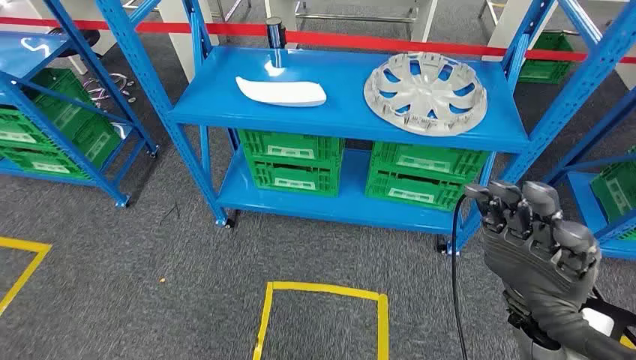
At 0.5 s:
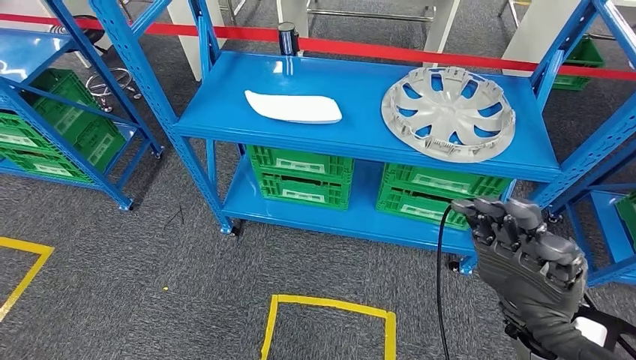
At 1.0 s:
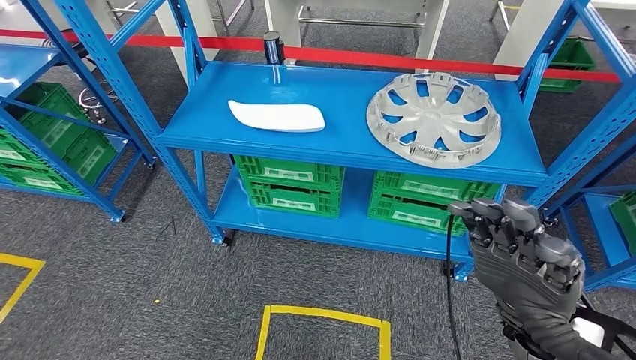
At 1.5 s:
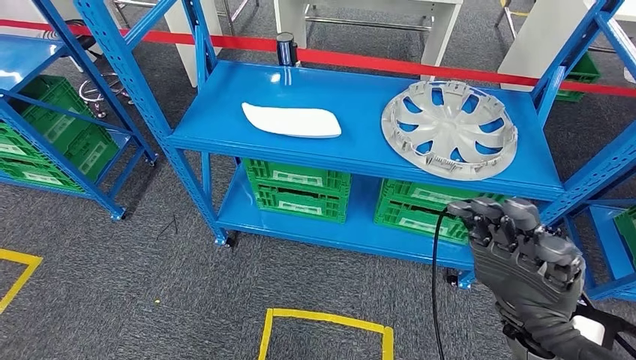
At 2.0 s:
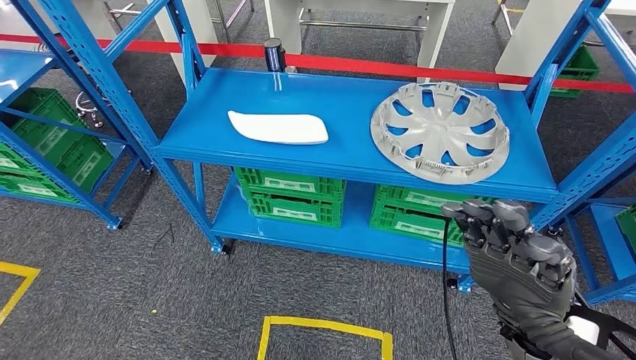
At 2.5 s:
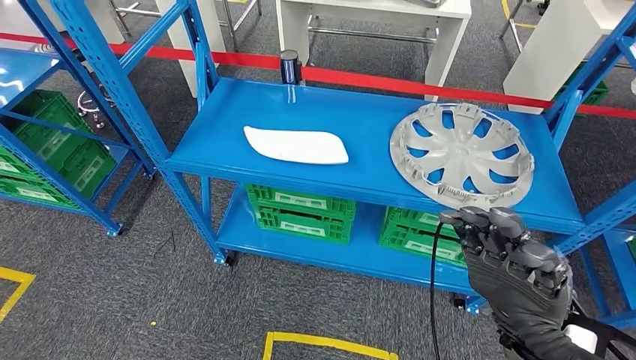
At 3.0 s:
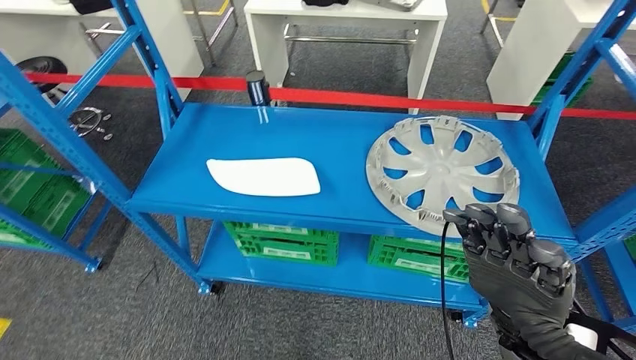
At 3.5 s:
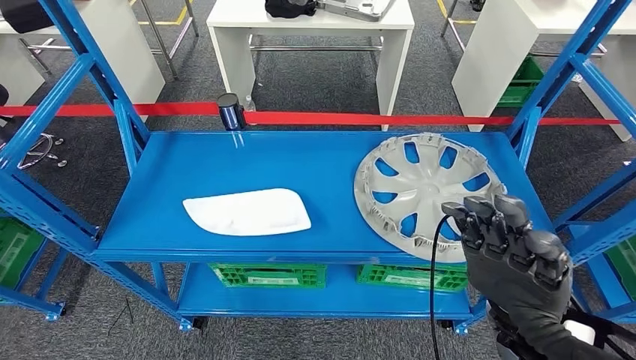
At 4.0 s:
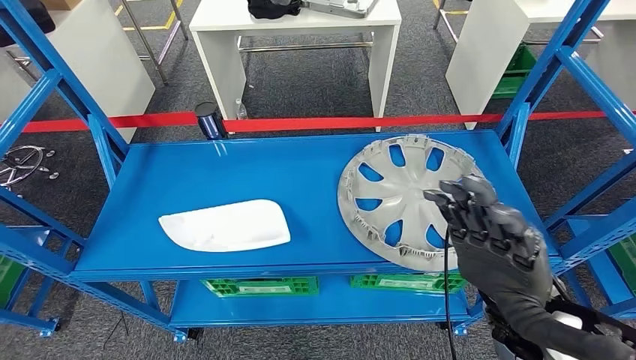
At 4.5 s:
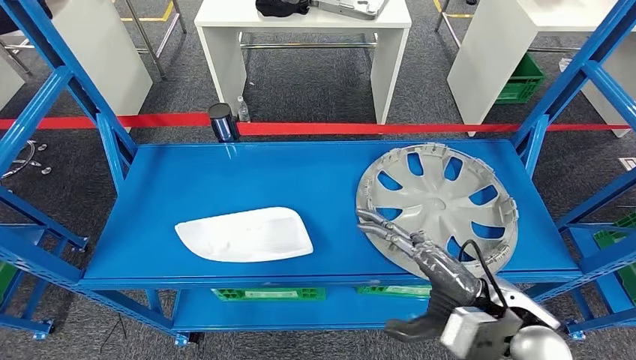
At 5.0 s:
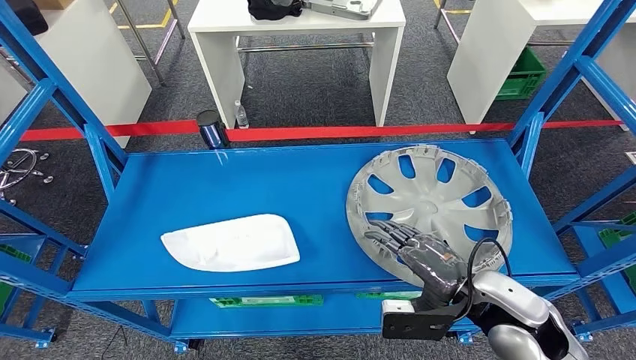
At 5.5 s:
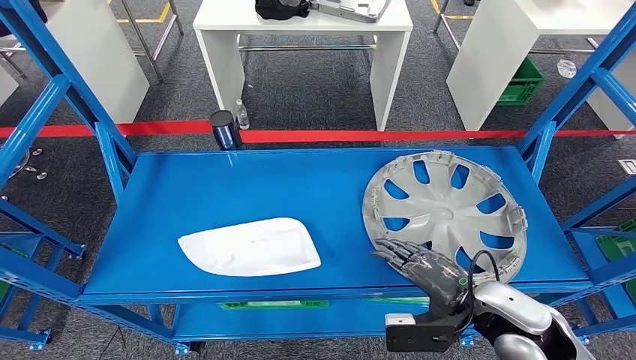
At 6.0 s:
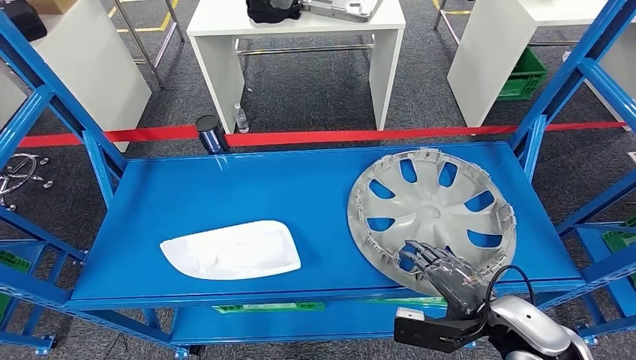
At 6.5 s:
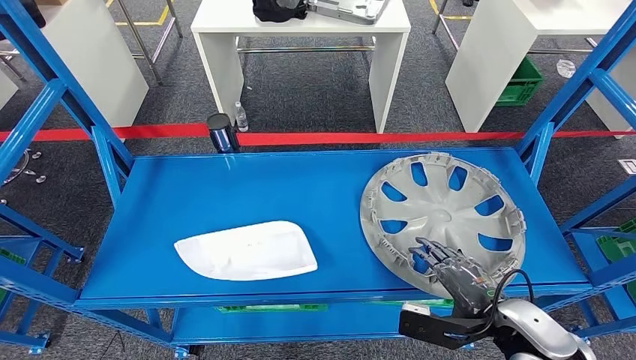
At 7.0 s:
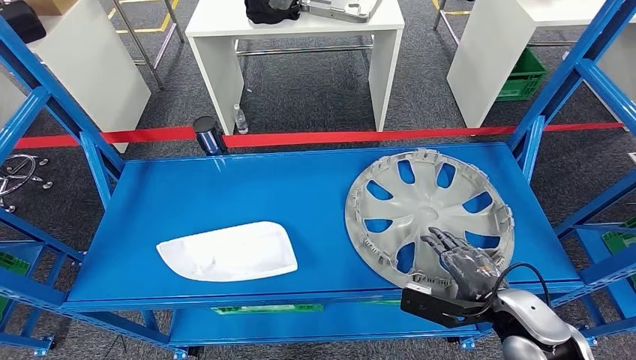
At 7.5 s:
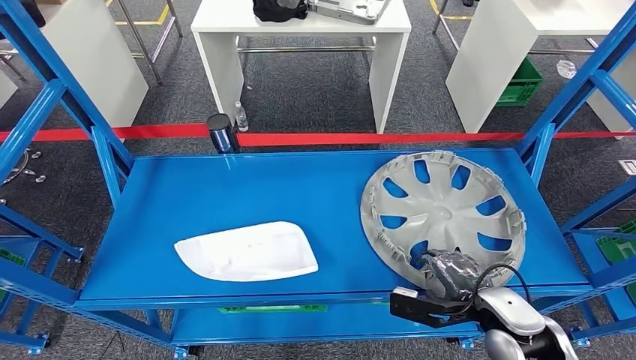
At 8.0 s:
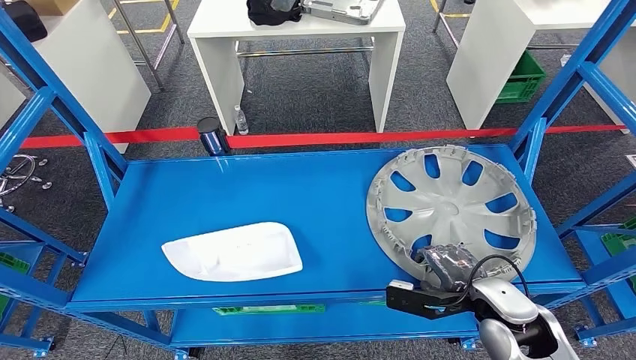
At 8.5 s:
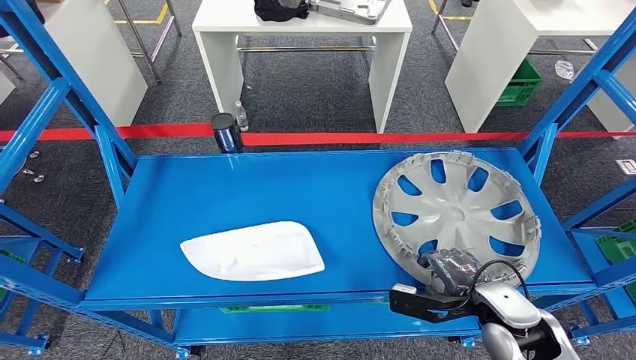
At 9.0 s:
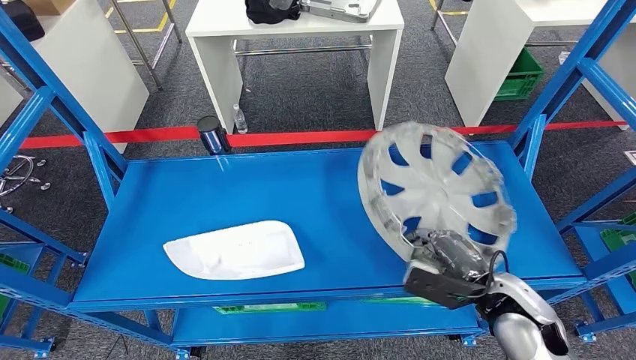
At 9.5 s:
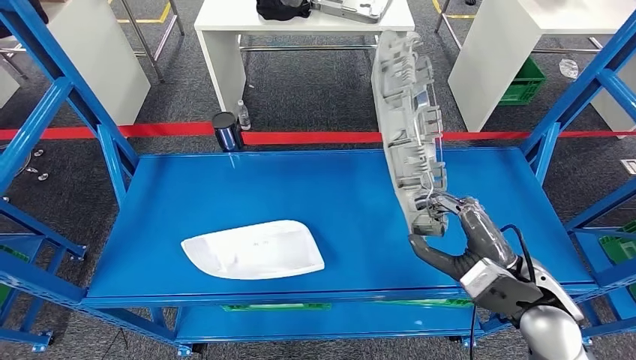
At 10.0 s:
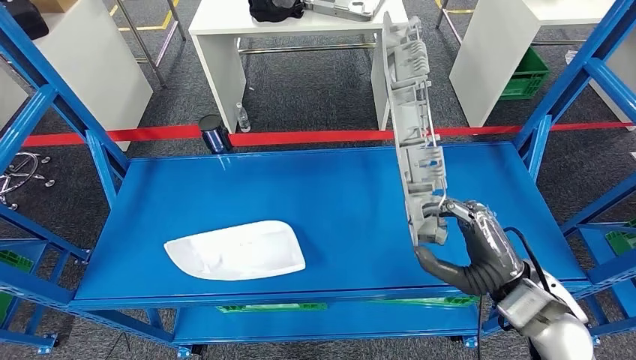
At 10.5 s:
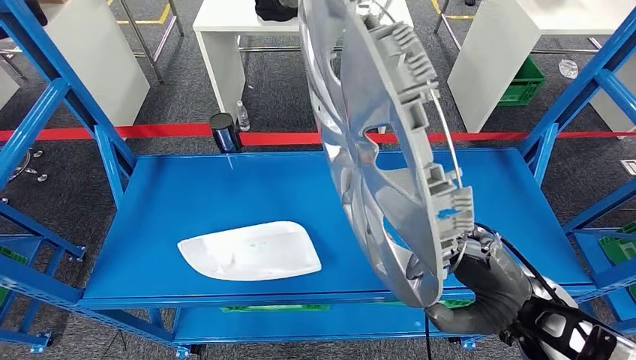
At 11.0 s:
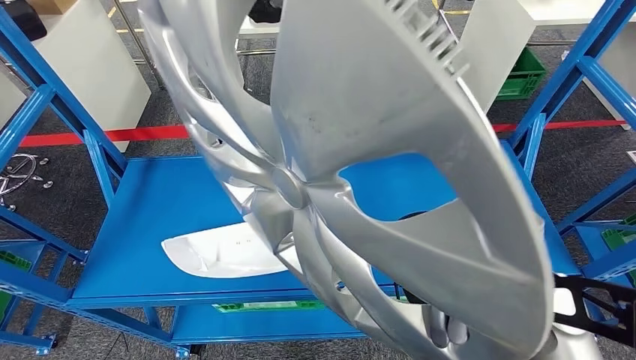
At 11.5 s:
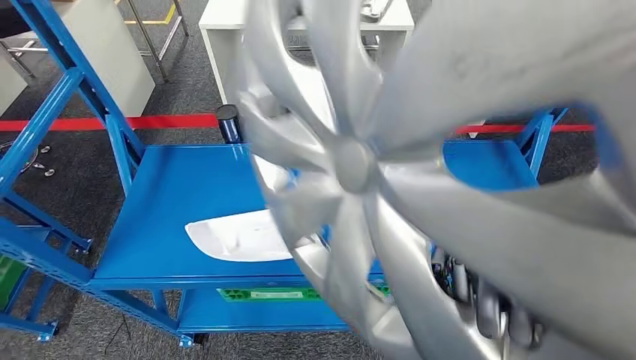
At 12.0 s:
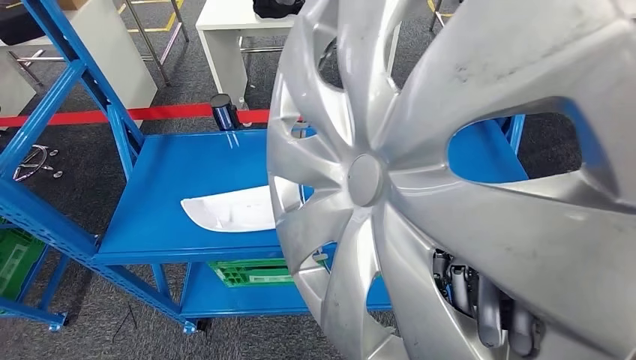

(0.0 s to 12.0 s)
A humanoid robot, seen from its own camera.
Step, 0.0 s - 10.0 s: Pick up the small component from the shelf.
6.0 s - 8.0 s: The right hand changes place by approximately 5 cm.

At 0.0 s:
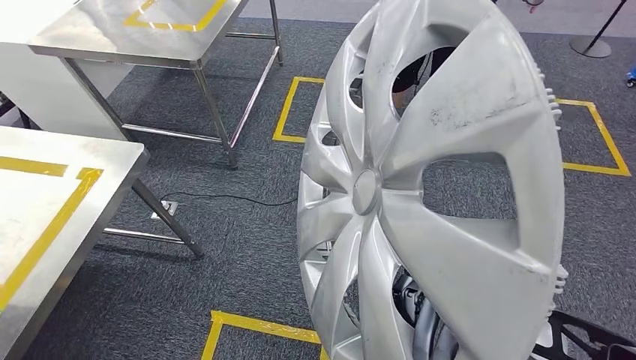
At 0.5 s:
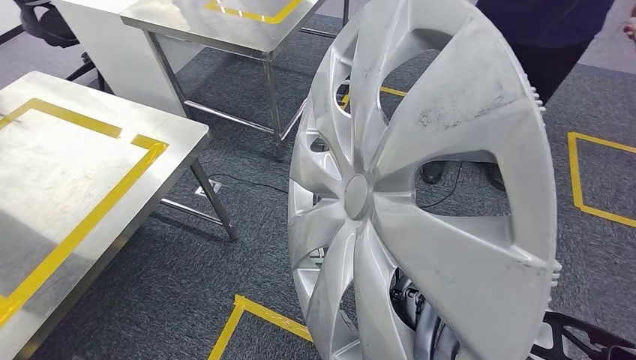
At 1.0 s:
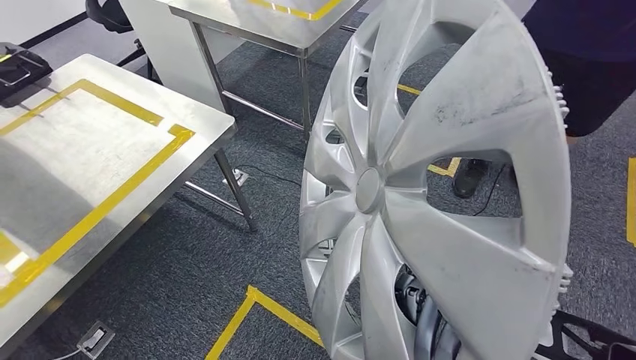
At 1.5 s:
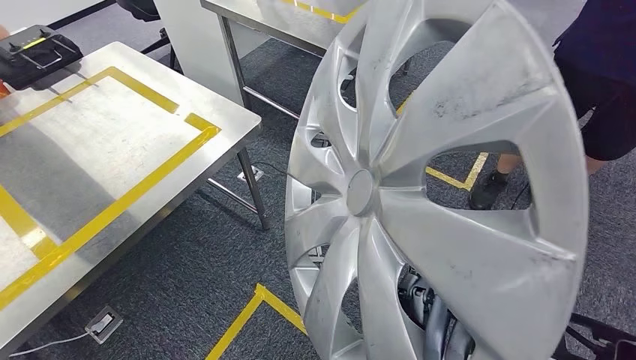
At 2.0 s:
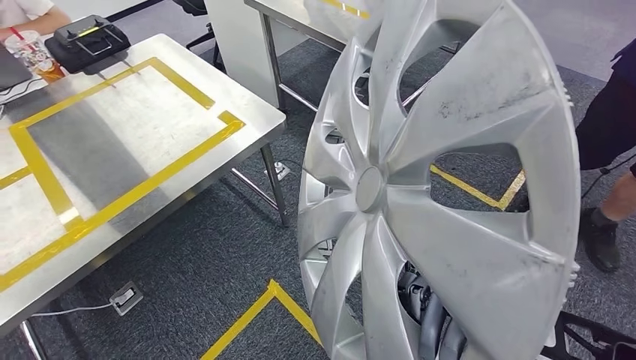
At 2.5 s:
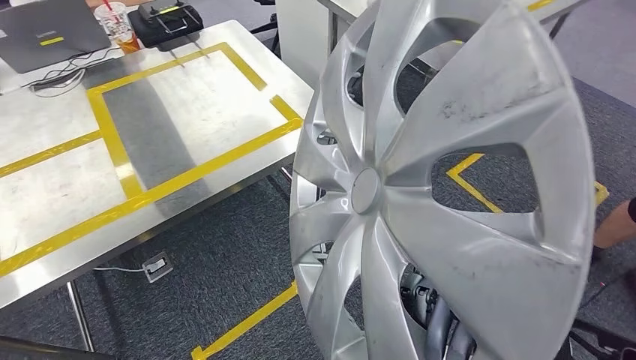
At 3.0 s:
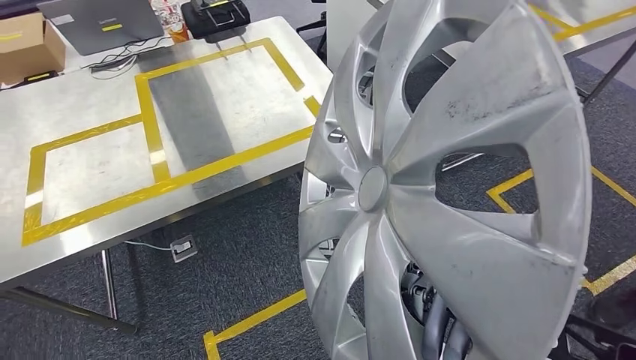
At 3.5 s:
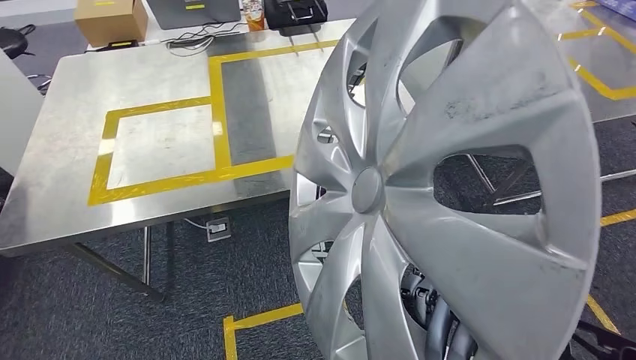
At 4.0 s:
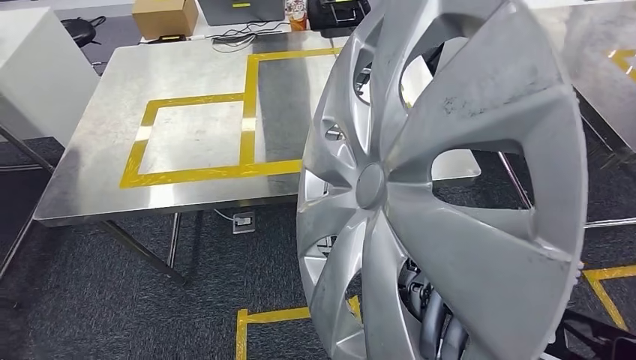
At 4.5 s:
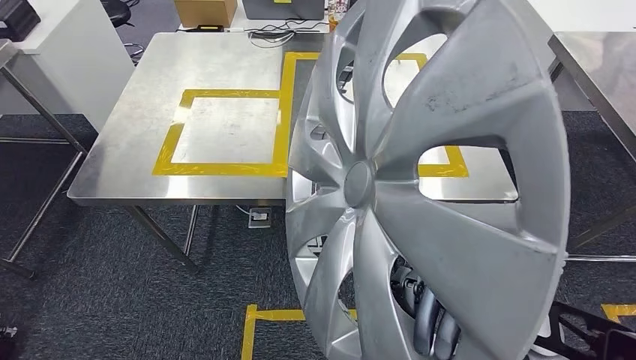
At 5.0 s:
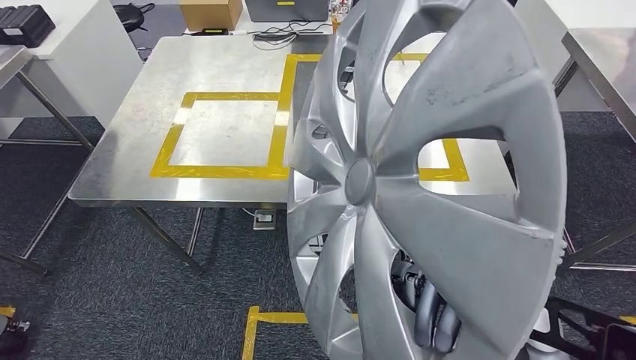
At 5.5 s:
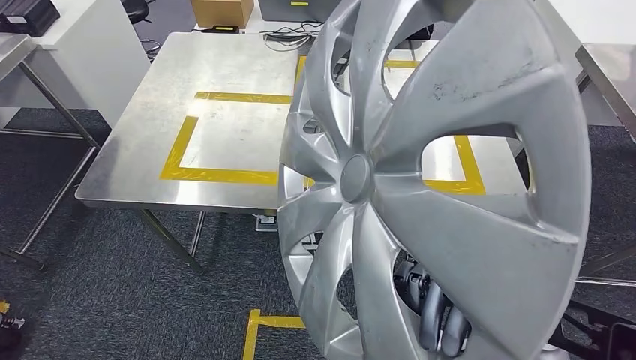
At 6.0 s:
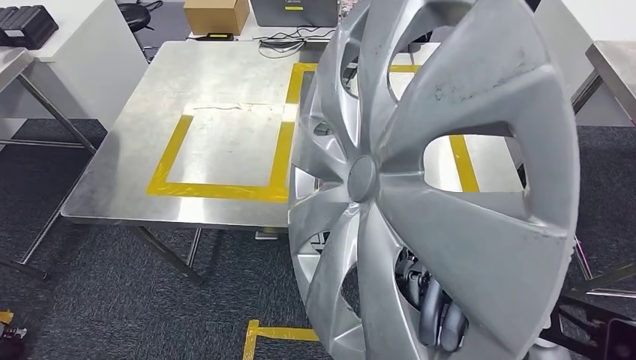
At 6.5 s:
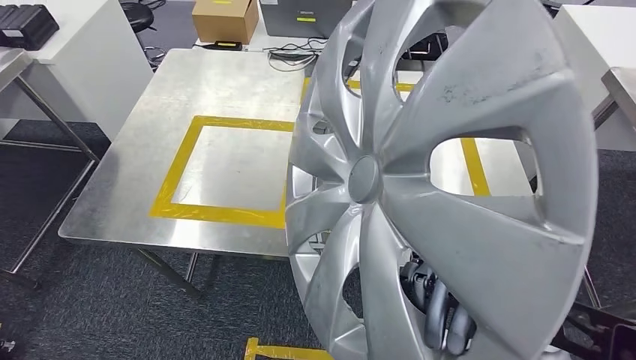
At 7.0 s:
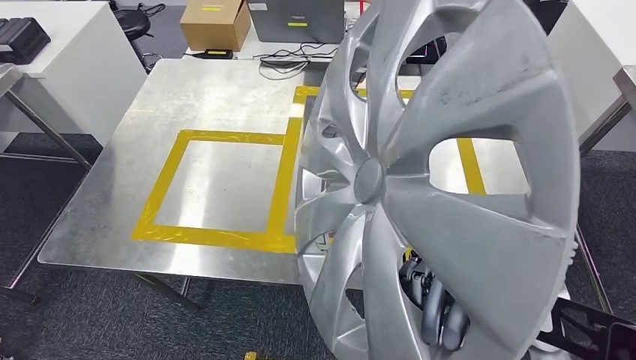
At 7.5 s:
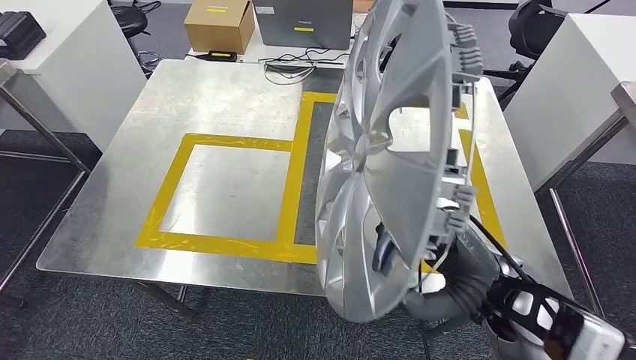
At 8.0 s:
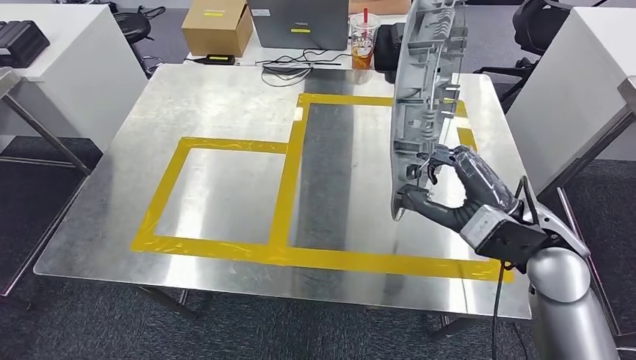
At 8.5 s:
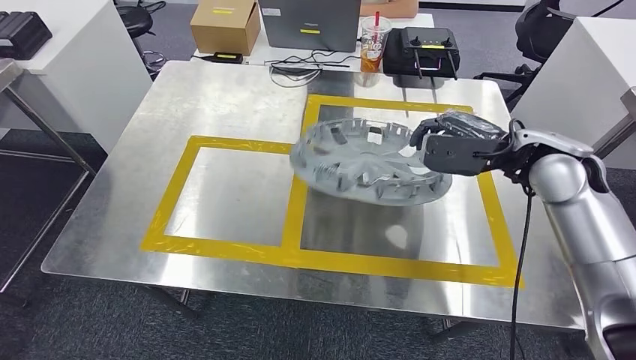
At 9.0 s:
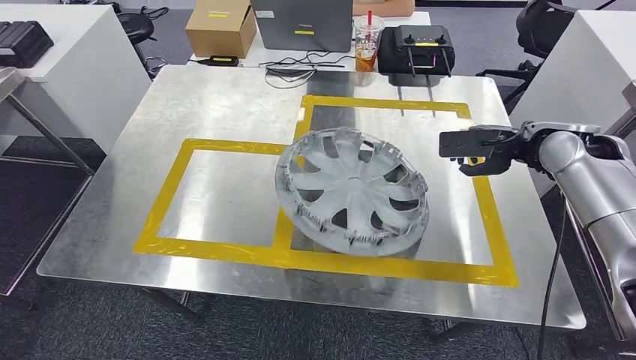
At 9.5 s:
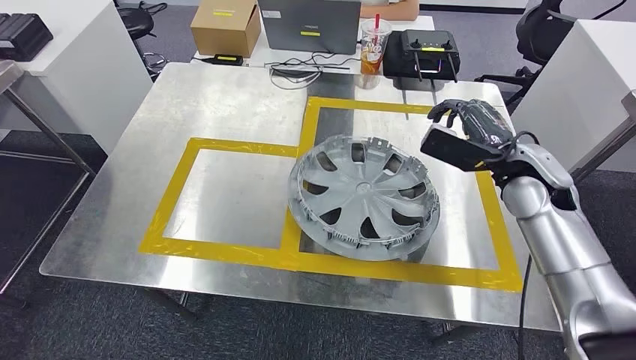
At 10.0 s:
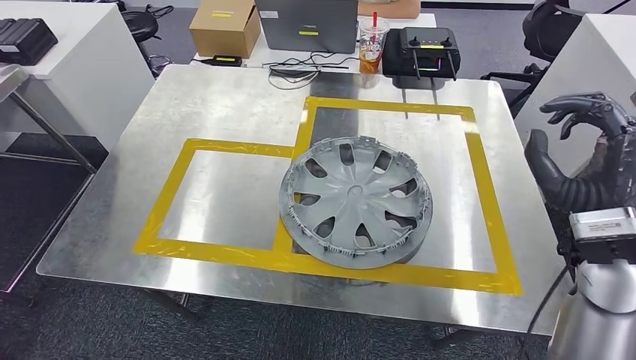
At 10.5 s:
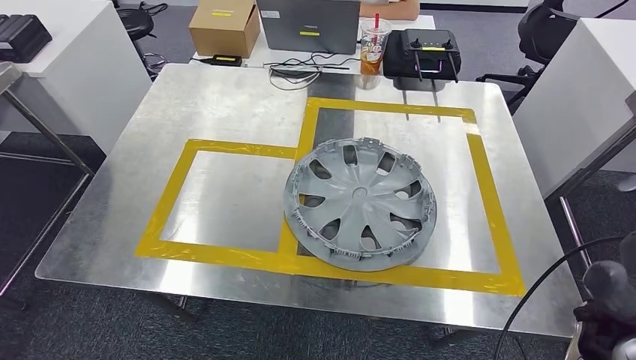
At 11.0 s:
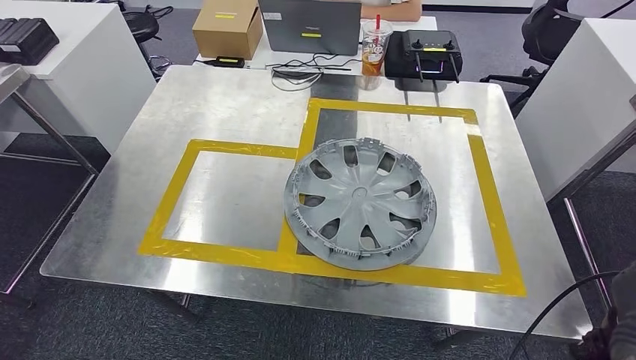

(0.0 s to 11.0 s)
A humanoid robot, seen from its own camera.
Step, 0.0 s - 2.0 s: Move the small component to the workbench.
Step, 2.5 s - 9.5 s: Insert the small component into the corresponding slot on the workbench.
